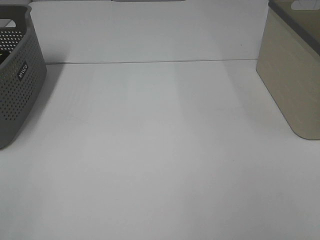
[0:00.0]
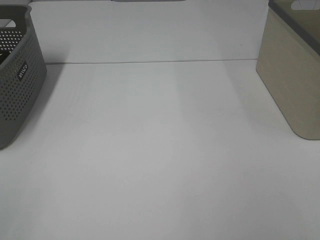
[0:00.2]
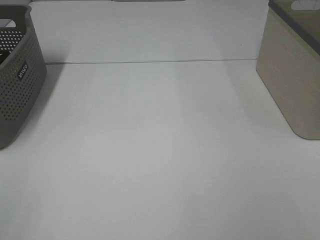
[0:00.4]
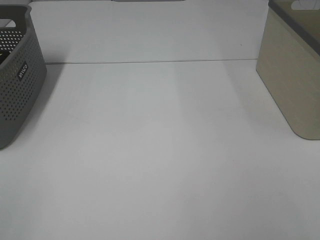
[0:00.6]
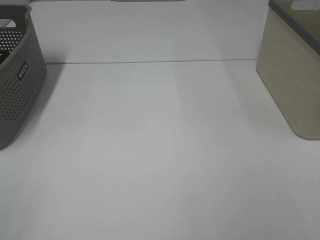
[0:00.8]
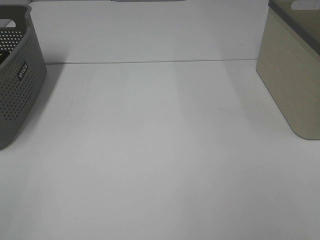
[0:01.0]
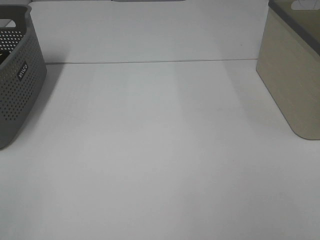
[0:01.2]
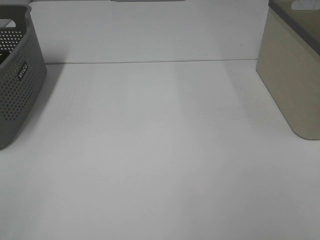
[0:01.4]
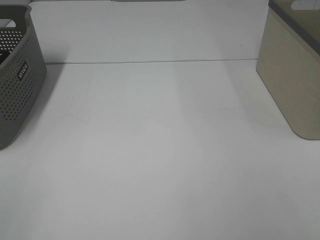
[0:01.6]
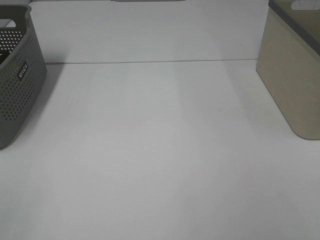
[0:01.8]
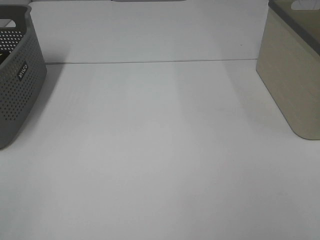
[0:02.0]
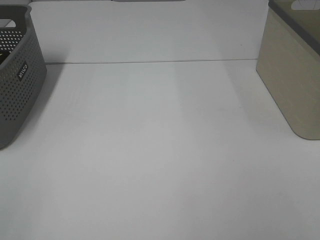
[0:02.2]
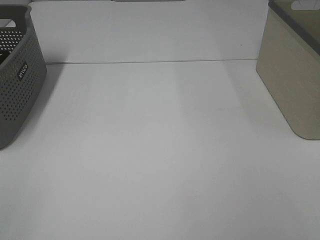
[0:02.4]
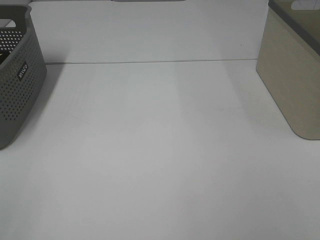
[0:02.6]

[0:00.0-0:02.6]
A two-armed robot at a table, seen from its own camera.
0:01.2 to 0:02.6: Neither gripper changes place.

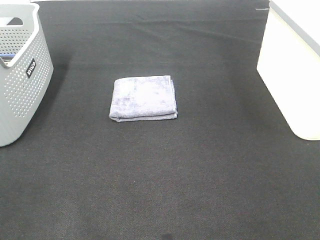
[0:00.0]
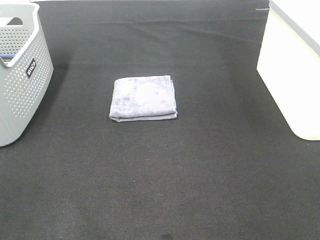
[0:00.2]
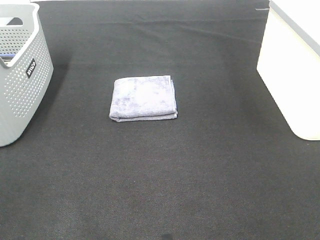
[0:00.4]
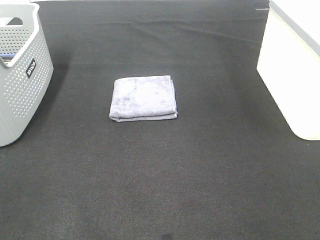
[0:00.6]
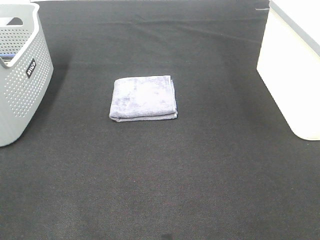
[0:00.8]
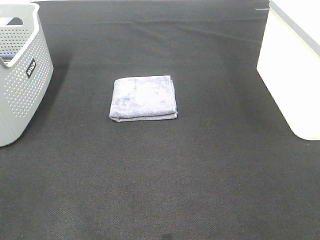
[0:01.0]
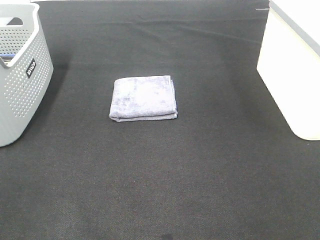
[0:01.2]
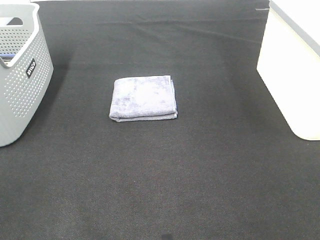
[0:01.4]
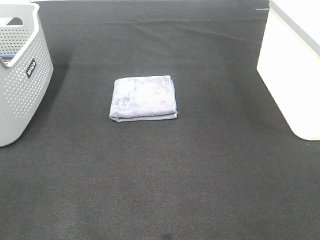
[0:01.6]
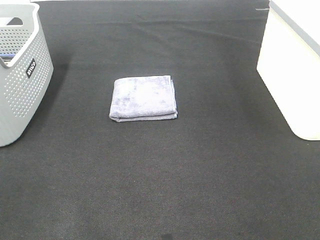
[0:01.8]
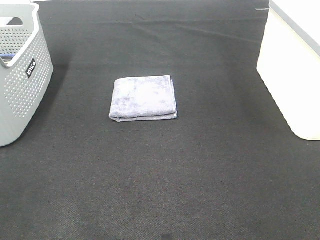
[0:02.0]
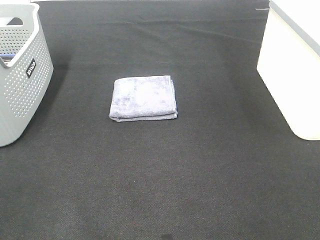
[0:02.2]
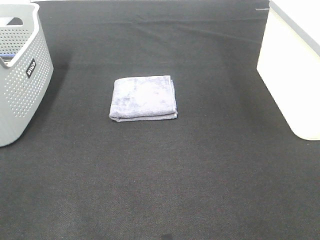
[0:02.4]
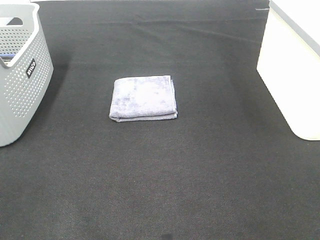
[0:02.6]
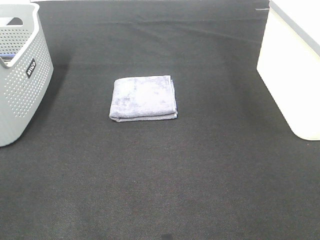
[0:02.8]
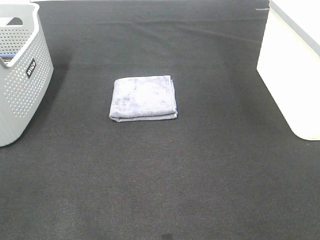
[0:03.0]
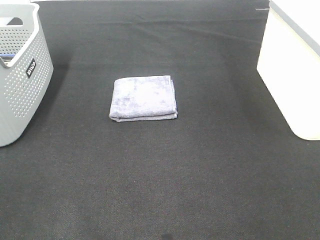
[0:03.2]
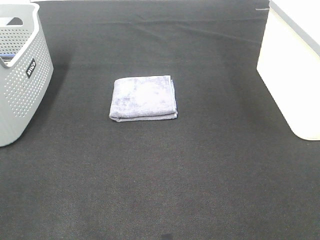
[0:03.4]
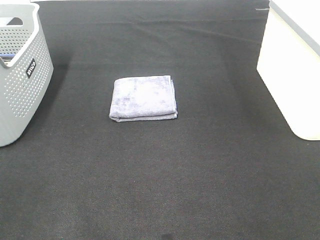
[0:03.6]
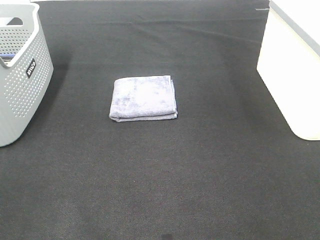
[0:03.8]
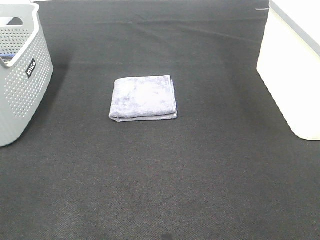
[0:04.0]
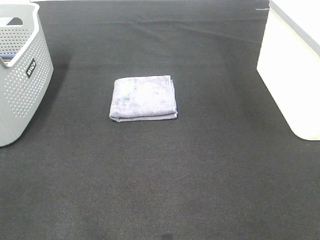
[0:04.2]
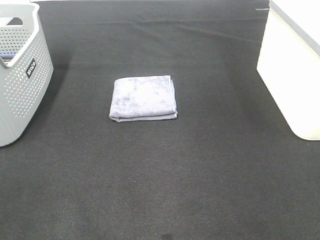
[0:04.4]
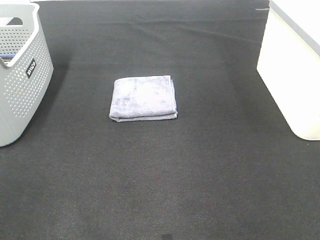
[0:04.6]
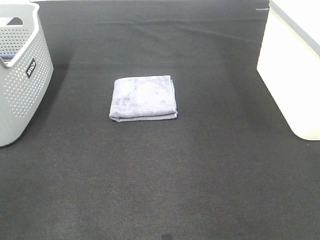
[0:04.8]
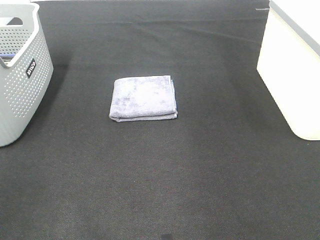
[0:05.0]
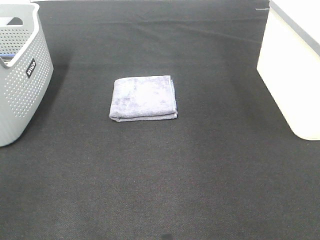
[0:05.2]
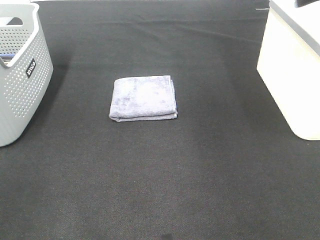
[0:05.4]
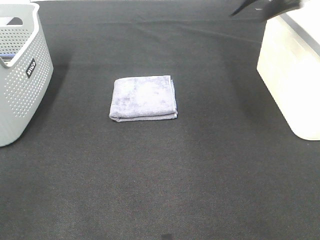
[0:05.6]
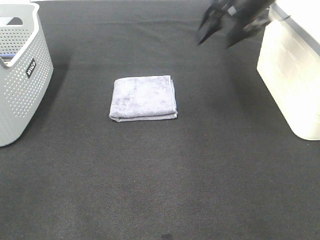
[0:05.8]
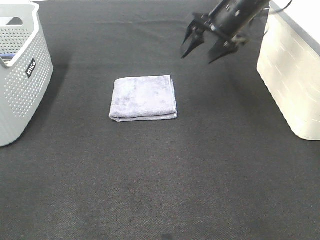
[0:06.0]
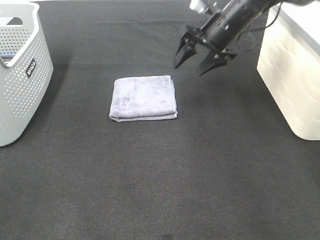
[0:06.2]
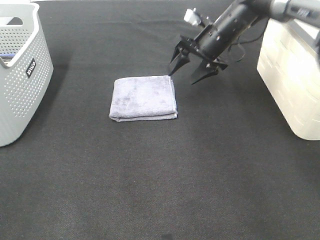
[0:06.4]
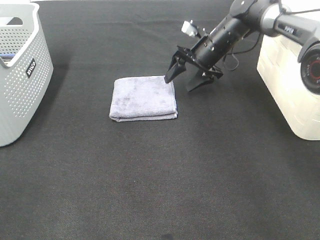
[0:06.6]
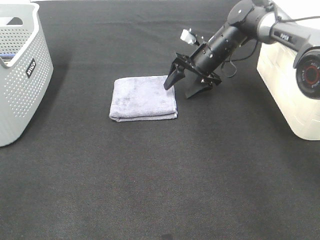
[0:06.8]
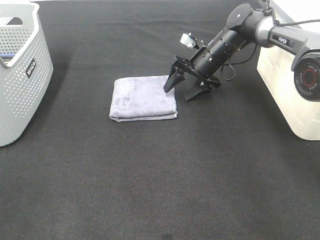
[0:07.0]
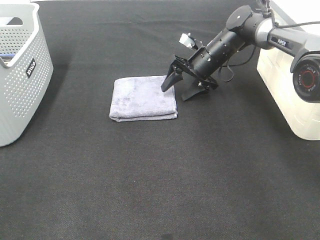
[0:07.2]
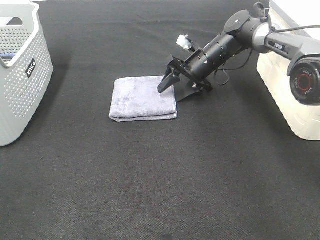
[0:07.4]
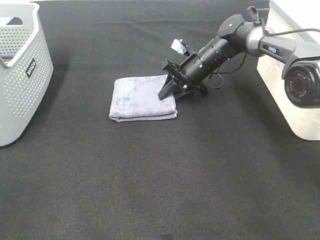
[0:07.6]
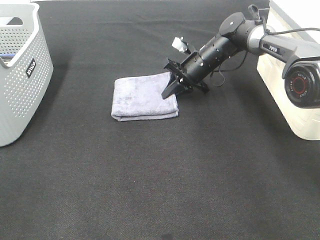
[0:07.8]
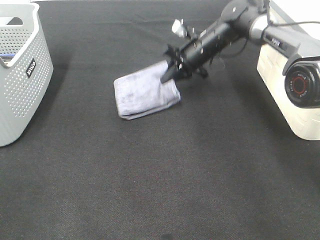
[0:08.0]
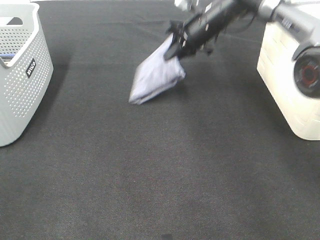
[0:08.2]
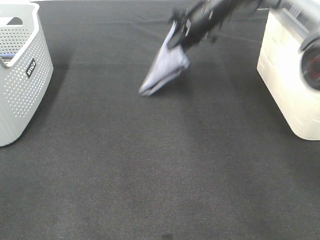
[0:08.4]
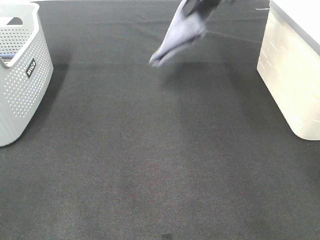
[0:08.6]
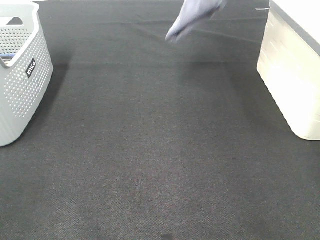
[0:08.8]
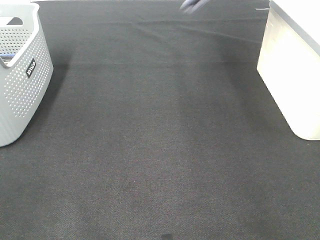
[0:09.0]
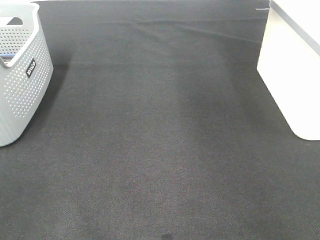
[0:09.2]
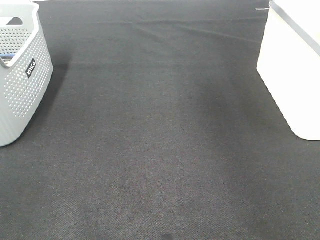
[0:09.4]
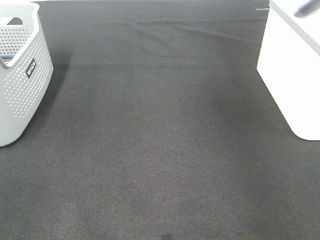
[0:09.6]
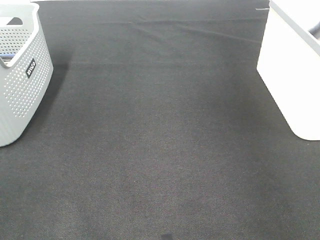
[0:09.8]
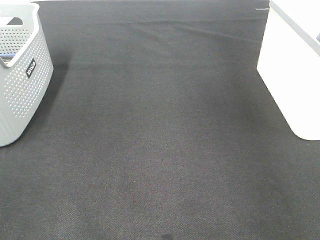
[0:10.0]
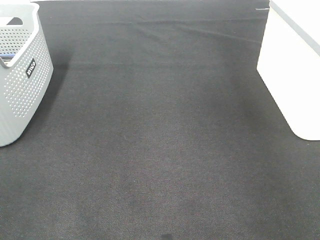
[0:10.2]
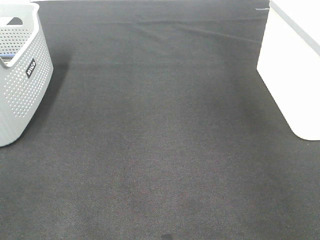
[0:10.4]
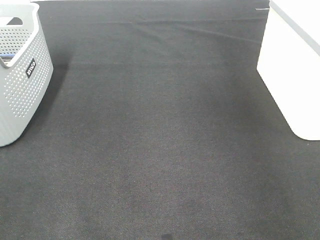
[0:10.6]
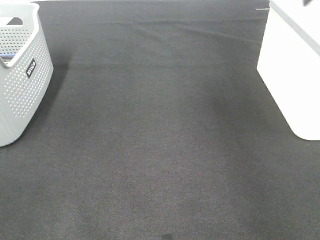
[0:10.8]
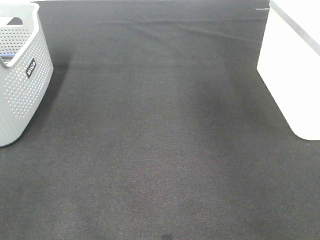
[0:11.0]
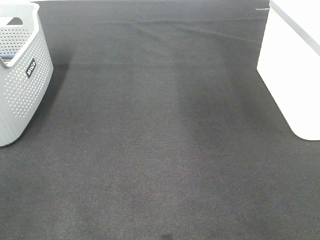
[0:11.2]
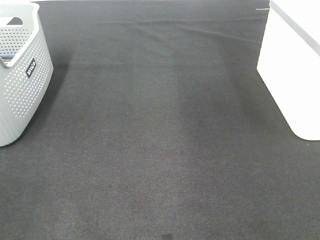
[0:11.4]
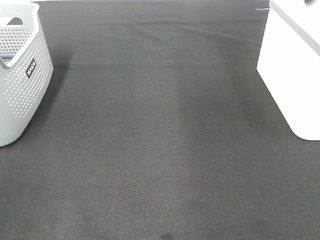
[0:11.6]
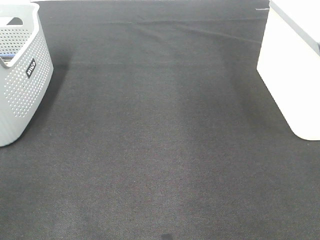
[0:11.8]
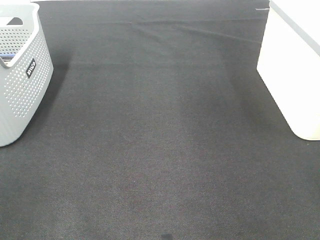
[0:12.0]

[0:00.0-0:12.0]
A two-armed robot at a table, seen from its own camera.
Step, 0:00.0 to 0:07.8: Right hand: grab the folded grey towel.
Step, 0:08.0 to 0:10.4: Right hand: place the grey towel in right basket.
0:00.0 to 0:03.0: Neither gripper changes place.
0:04.4 to 0:06.0: The right gripper is displaced forward by roughly 40 cm.
0:06.0 to 0:07.6: The right gripper moves downward, some 15 cm, and closes its fingers.
0:07.6 to 0:09.0: The right gripper moves upward, about 35 cm.
0:09.0 to 0:10.4: The right gripper shifts roughly 20 cm to the right and downward, and opens its fingers.

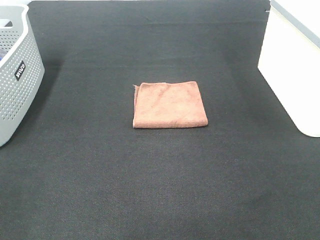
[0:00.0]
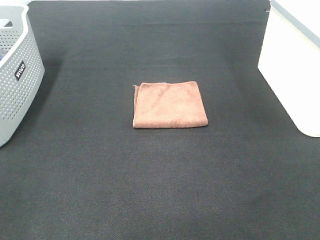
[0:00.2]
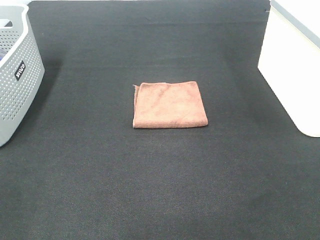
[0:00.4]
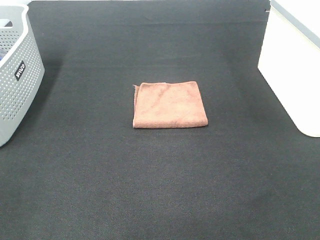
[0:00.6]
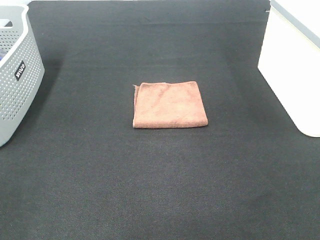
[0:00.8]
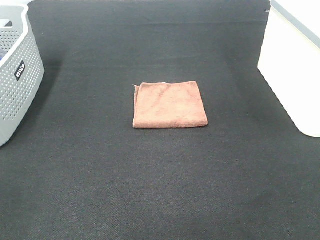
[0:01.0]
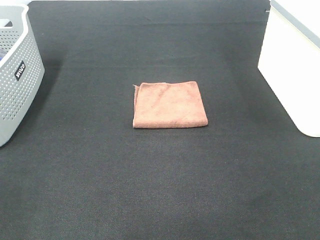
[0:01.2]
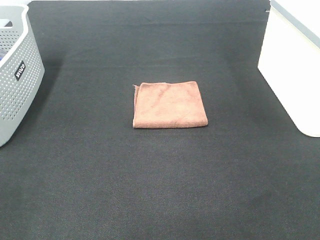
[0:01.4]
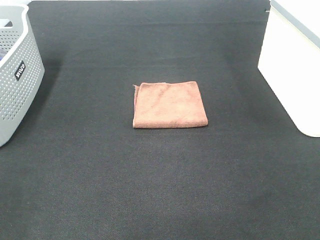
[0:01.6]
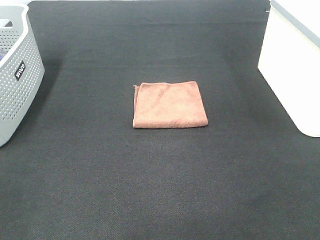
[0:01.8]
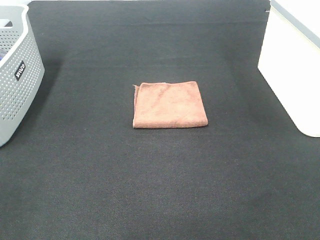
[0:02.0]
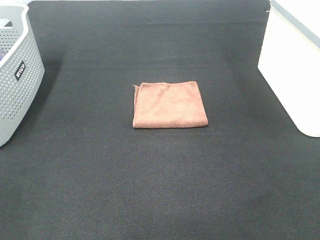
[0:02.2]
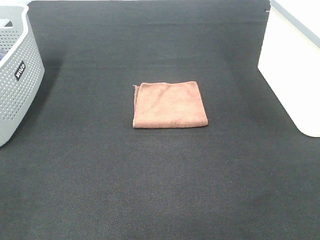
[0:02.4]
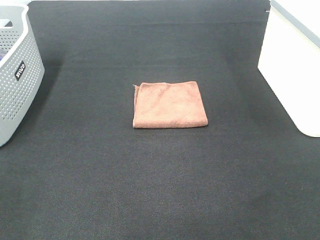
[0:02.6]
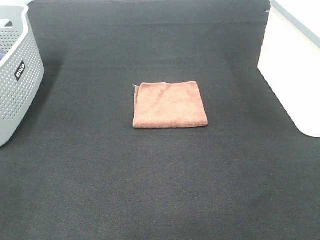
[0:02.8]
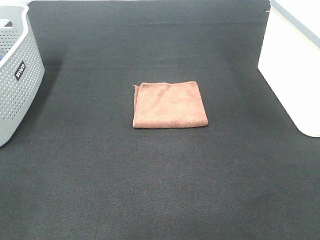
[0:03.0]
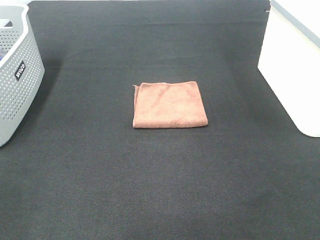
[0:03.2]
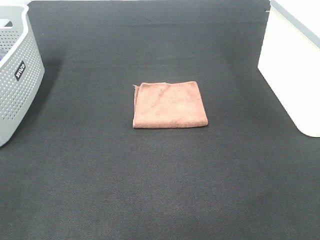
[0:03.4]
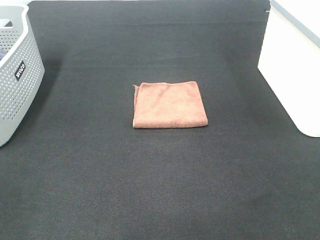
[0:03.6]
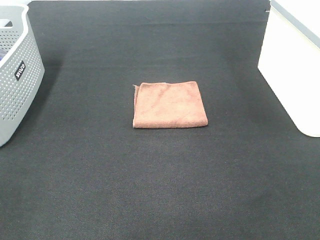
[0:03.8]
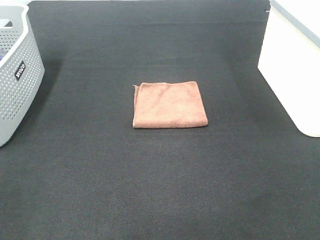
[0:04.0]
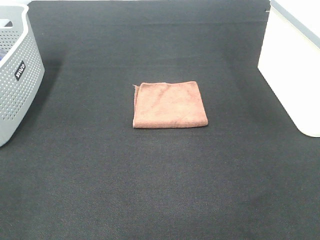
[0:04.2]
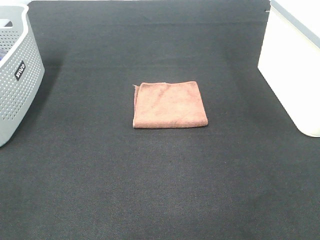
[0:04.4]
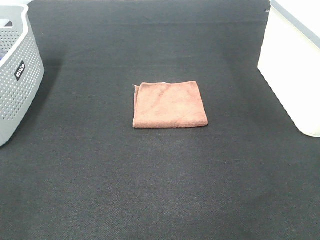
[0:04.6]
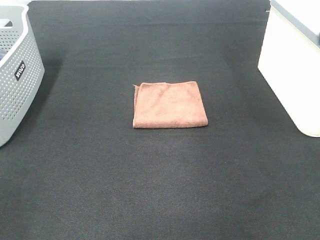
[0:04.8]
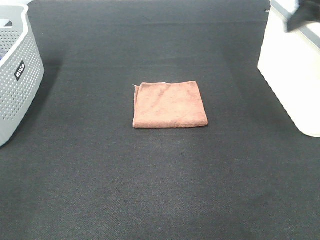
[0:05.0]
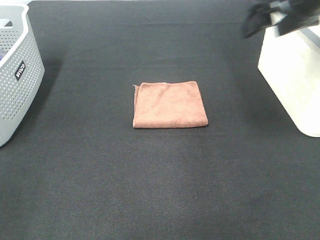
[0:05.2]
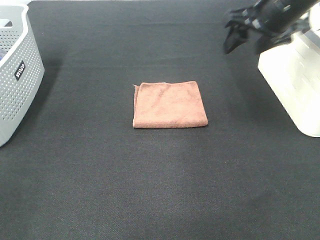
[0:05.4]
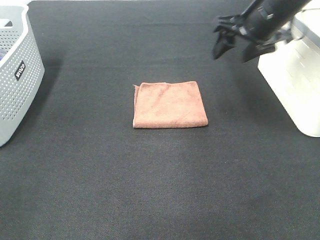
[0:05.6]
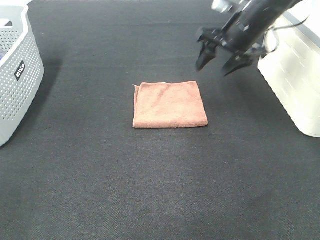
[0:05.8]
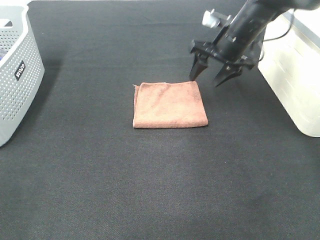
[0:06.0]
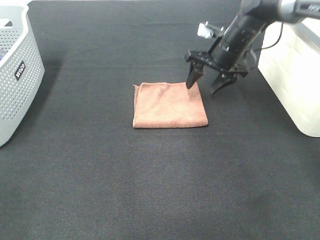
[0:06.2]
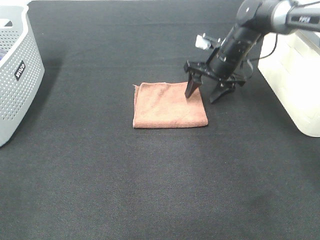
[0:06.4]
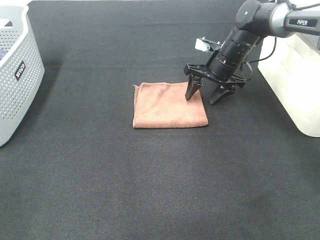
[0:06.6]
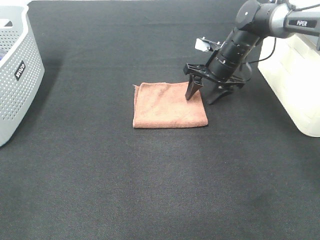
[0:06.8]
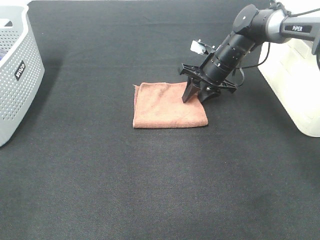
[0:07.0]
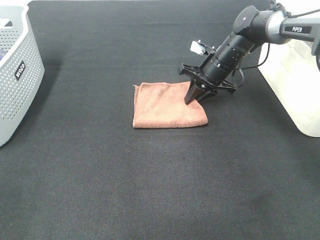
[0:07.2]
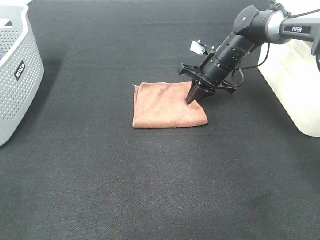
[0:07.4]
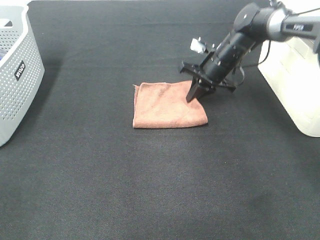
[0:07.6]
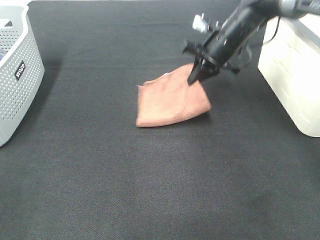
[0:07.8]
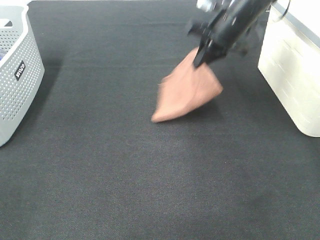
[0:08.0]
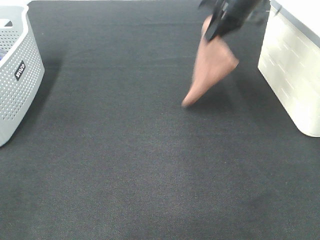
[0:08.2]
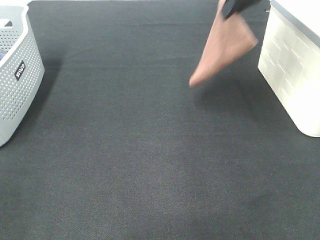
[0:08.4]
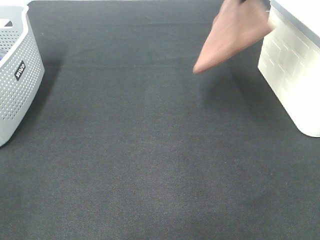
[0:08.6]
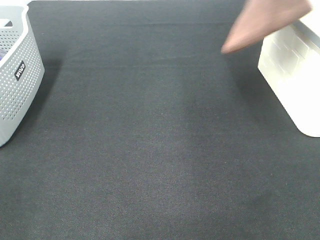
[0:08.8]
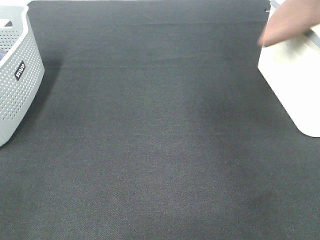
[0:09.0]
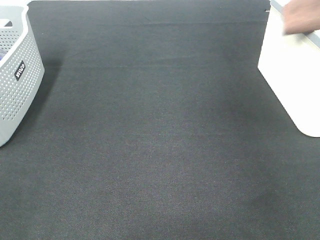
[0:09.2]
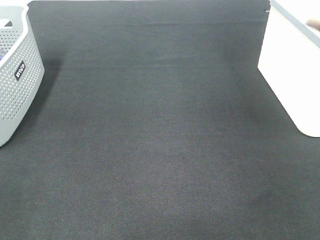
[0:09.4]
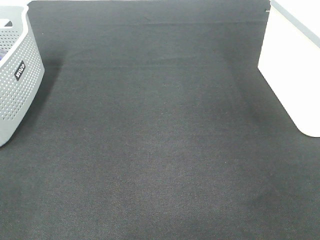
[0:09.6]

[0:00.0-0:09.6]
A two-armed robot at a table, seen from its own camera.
Step, 0:00.0 to 0:07.2: Right hand: grab the folded brown towel.
0:00.0 to 0:03.2: The two grippers keep their place.
0:04.8 to 0:06.4: The right gripper travels forward, downward and to the left by approximately 35 cm.
0:06.4 to 0:08.0: The right gripper moves upward, approximately 10 cm, and closes.
0:08.0 to 0:09.6: The right gripper moves to the right and upward, roughly 30 cm.
